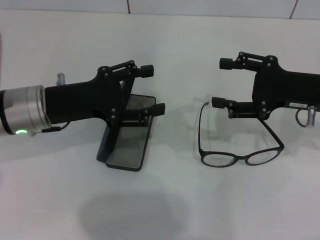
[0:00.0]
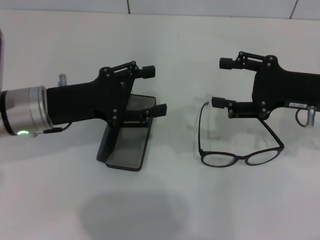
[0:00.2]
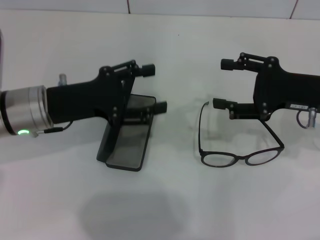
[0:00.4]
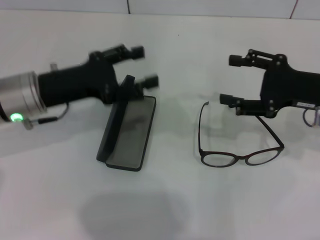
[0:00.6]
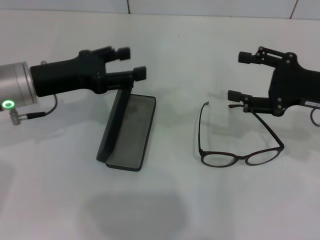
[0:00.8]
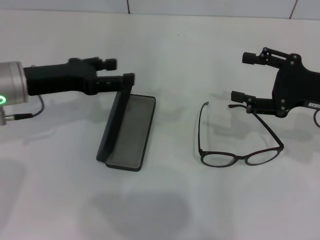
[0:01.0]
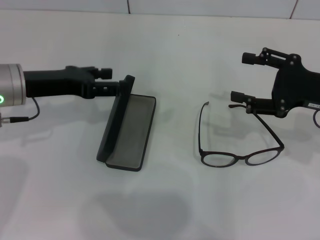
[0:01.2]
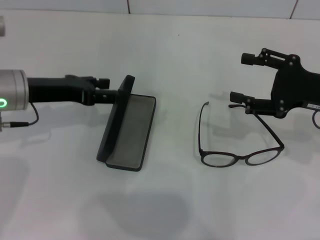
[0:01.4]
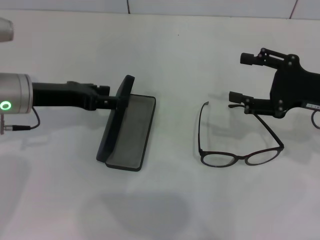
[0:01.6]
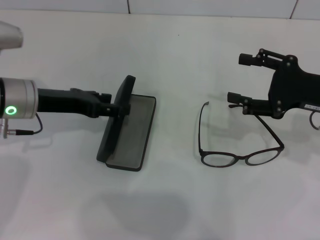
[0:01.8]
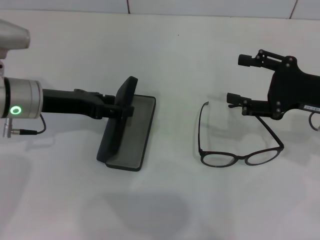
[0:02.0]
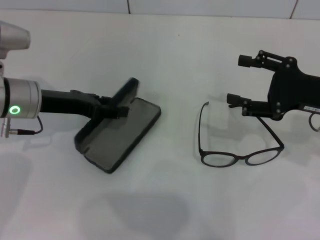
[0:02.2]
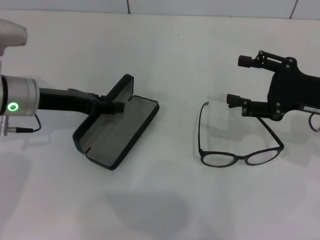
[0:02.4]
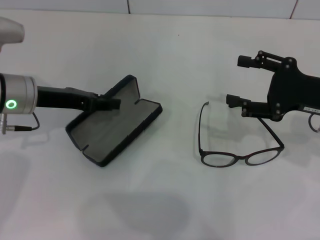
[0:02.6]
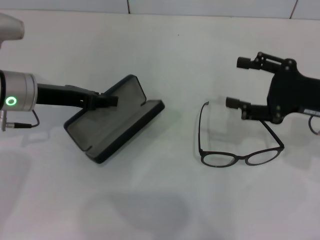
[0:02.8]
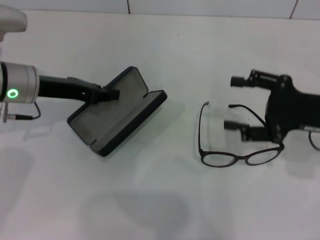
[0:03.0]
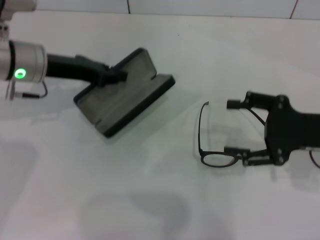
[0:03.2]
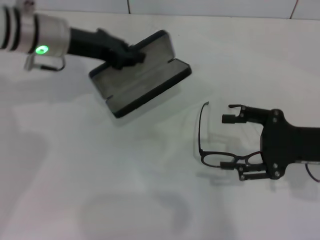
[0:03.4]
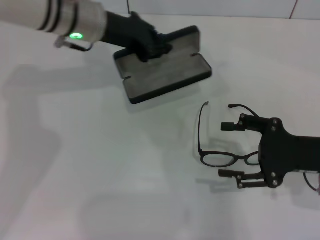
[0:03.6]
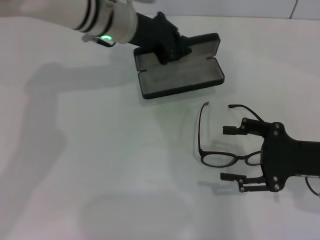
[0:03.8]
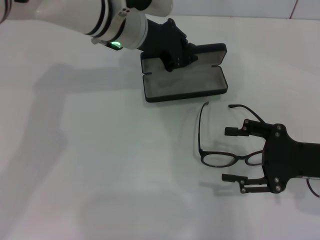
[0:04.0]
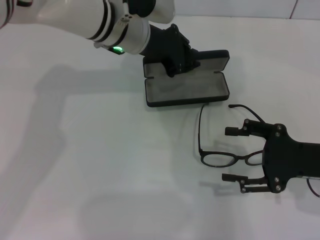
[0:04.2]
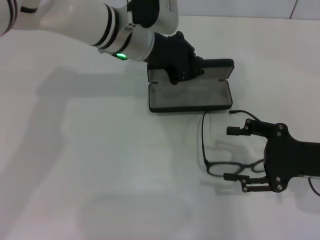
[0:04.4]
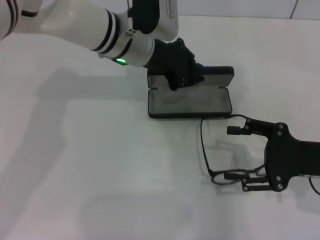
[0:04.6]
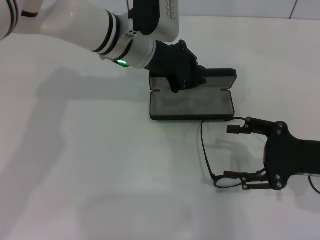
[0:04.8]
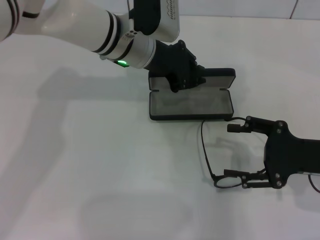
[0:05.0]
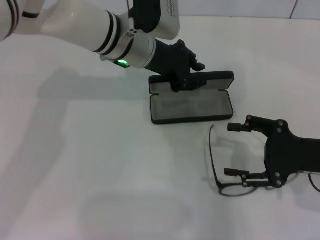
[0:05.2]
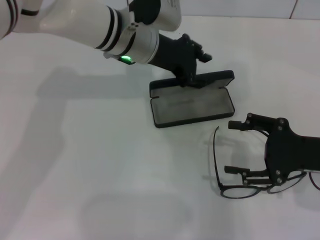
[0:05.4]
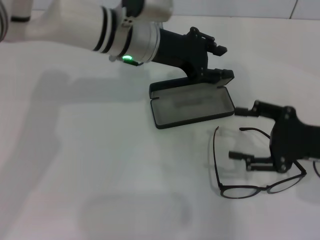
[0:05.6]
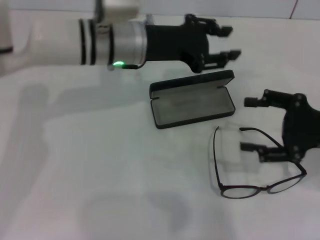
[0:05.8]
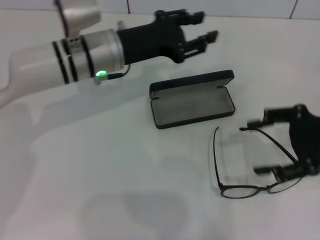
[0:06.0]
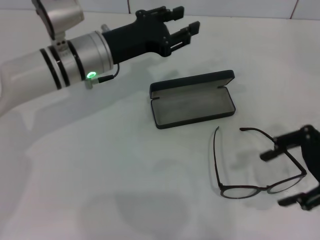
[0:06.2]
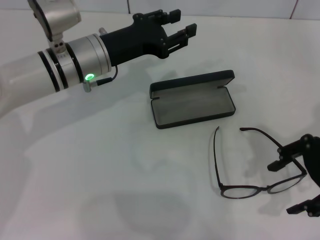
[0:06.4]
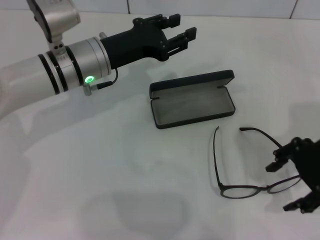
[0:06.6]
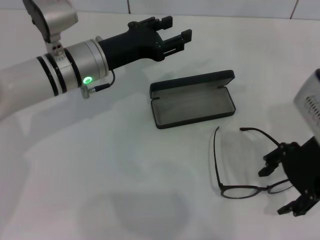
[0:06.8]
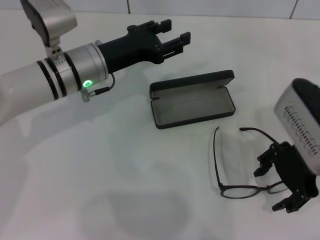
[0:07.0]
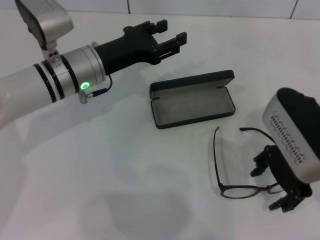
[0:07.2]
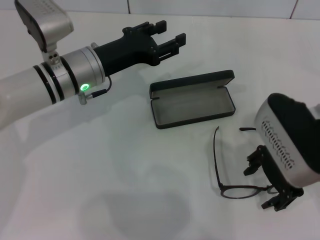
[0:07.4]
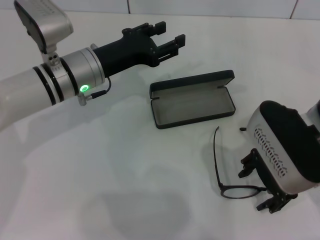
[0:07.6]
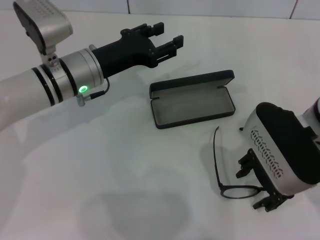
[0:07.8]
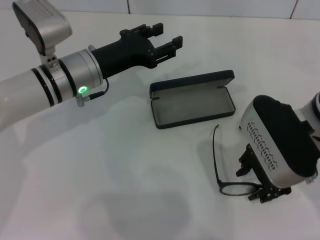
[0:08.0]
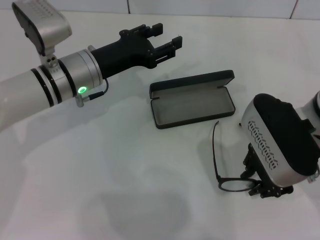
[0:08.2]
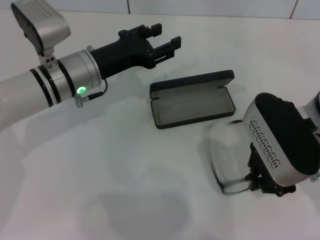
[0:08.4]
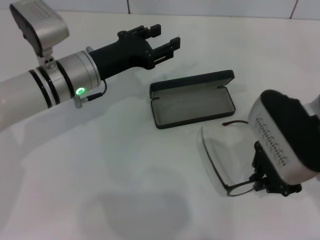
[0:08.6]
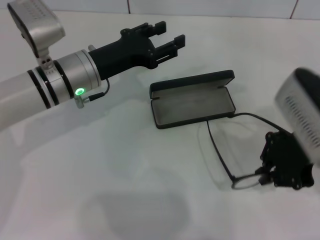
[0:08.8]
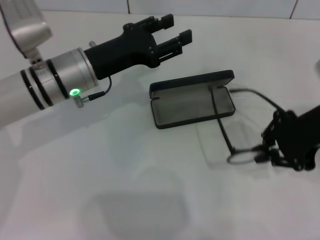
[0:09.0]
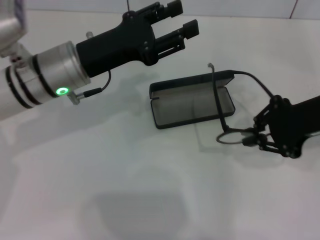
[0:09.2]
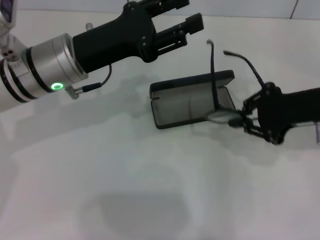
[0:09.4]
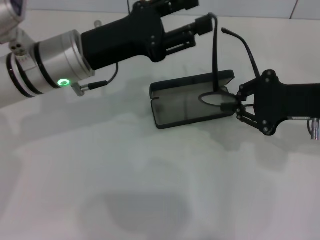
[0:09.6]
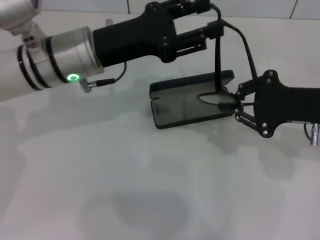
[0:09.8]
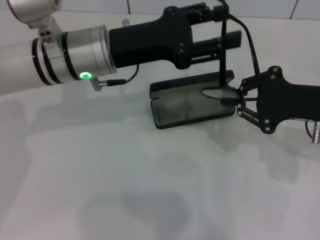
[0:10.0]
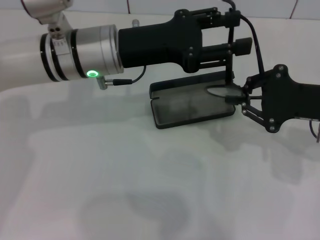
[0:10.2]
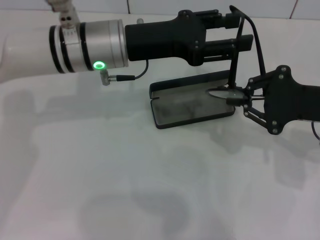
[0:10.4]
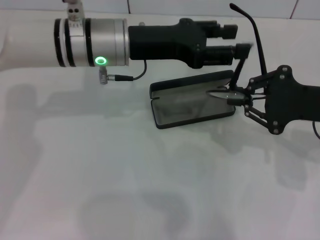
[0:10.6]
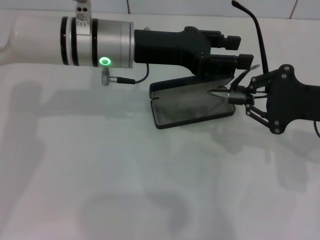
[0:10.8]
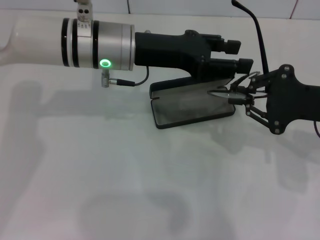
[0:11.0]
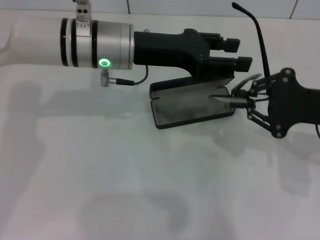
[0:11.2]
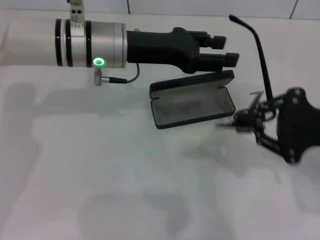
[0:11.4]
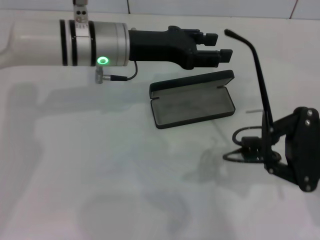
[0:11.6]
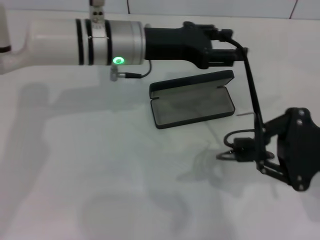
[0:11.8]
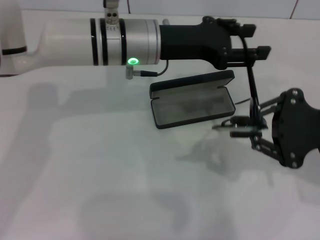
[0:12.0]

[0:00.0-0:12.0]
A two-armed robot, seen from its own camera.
Step, 0:00.0 to 0:02.2: Grab the glasses case with your left hand.
Step, 0:02.6 to 0:04.8: Place the glasses case in the center of the table with your left hand.
Step, 0:05.0 to 0:08.2: Grab the eyeglass frame with your right hand.
0:01.6 to 0:03.0: The left gripper closes up.
0:03.0 to 0:04.4: The right gripper changes place by some 5 cm. Meanwhile the left gripper shifts some 15 cm to the right.
0:04.4 to 0:06.0: The right gripper goes approximately 10 cm upward; the left gripper goes roughly 5 cm to the left, and opens up.
0:06.0 to 0:07.6: The right gripper moves to the left, approximately 10 cm.
0:07.6 to 0:09.0: The right gripper is displaced to the right and upward by approximately 5 cm, and closes up.
0:09.0 to 0:10.4: The right gripper goes some 5 cm downward; the left gripper heads upward, covering approximately 5 cm.

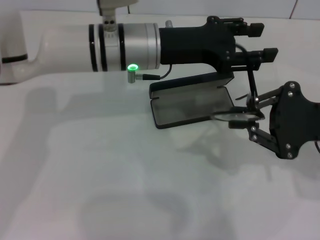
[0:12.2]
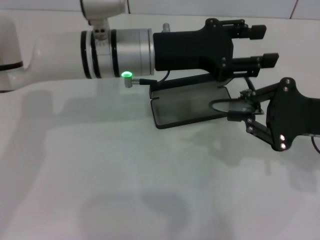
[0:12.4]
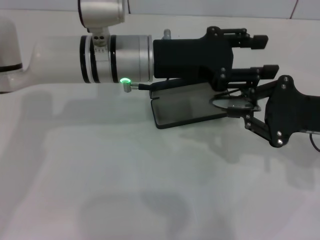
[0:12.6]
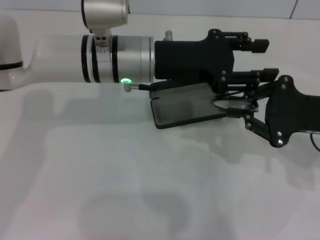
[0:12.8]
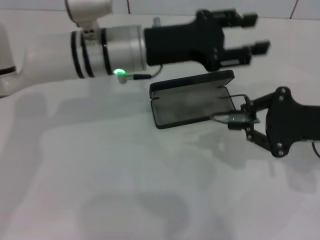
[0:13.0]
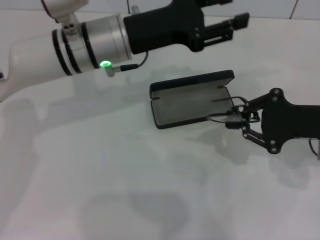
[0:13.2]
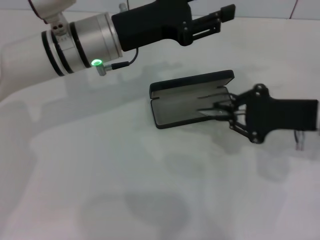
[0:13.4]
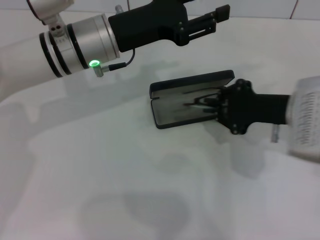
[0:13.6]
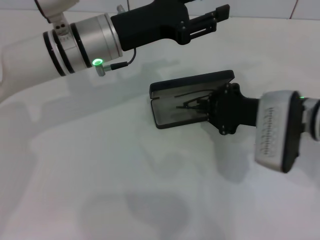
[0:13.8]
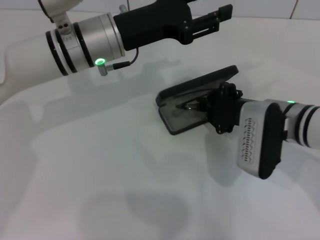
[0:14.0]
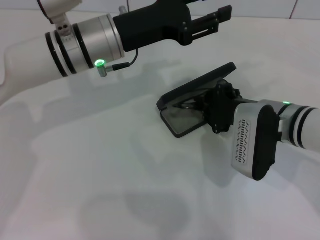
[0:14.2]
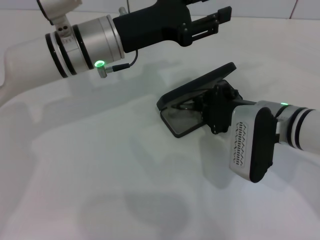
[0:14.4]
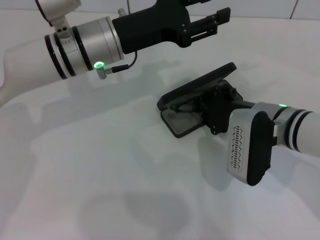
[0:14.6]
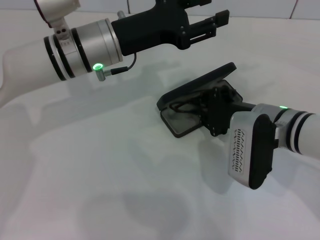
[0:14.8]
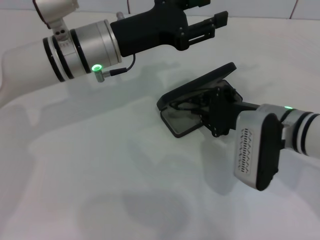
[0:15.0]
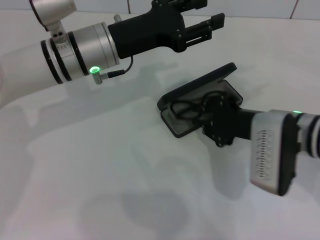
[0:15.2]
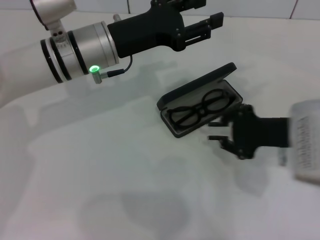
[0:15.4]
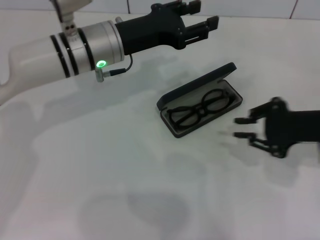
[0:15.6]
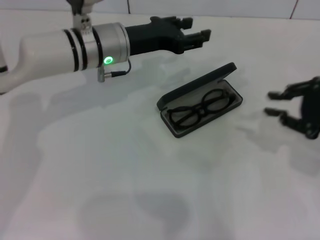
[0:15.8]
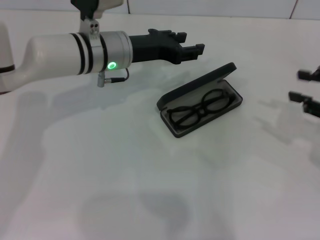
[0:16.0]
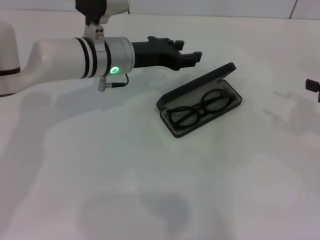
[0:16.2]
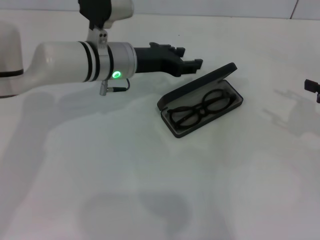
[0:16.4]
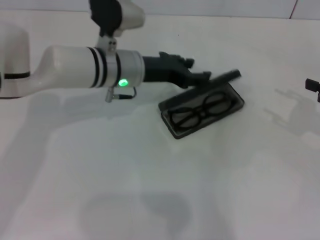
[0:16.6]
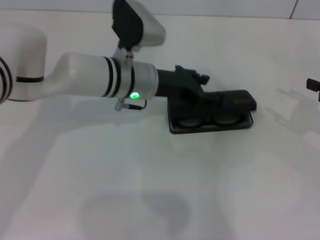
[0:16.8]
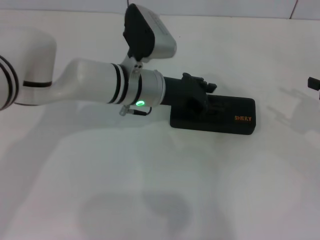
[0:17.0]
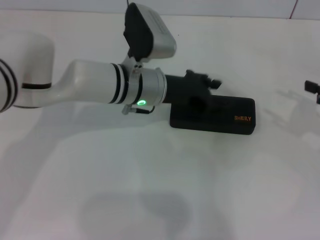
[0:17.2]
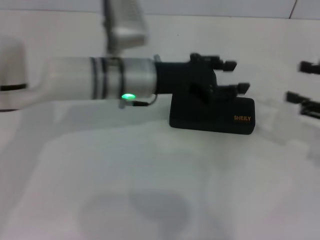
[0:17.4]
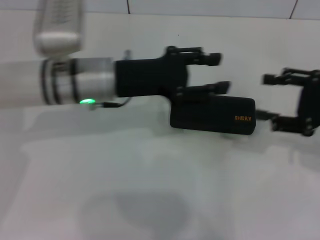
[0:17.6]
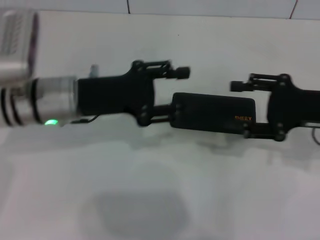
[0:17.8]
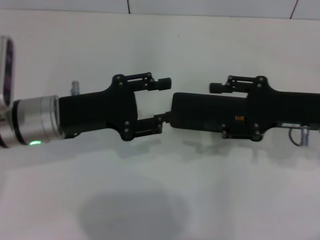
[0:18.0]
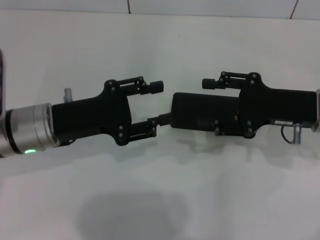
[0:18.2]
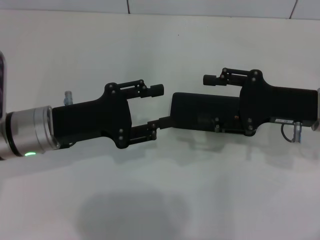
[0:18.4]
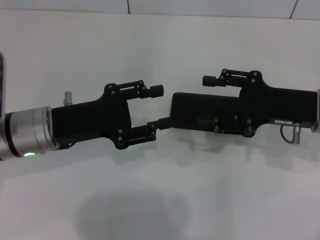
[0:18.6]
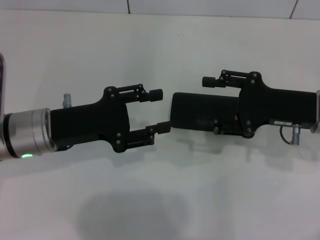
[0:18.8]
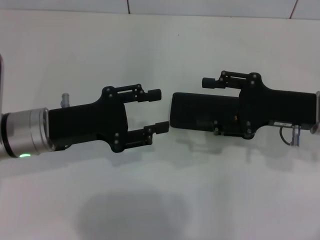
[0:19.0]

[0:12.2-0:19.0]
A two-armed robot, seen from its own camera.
Step, 0:12.6 to 0:15.2: Put the glasses into the case with your right hand.
Step, 0:15.4 to 0:16.8: Close the glasses case with your left hand.
0:12.2 to 0:13.6: Both grippers move to the left, approximately 5 cm.
0:13.6 to 0:15.0: The right gripper moves roughly 5 cm.
0:15.0 to 0:16.2: The right gripper heads to the right, covering approximately 20 cm. The left gripper moves approximately 5 cm.
0:16.2 to 0:17.6: The left gripper moves backward, about 5 cm, while the right gripper travels to the left by roughly 5 cm, and opens up.
0:17.6 to 0:19.0: The left gripper travels to the left and backward by about 10 cm. The right gripper goes roughly 10 cm to the left.

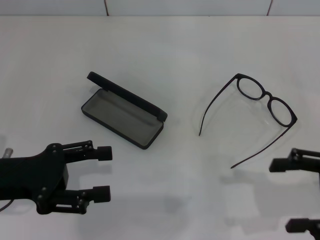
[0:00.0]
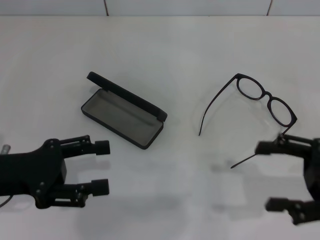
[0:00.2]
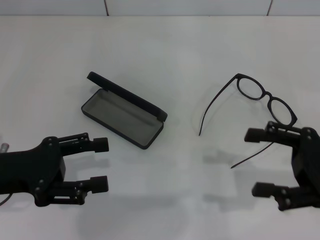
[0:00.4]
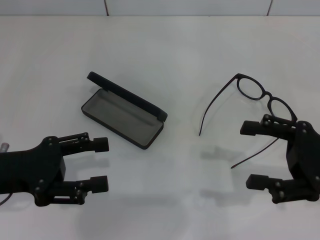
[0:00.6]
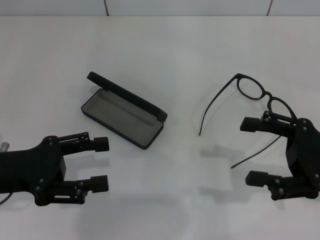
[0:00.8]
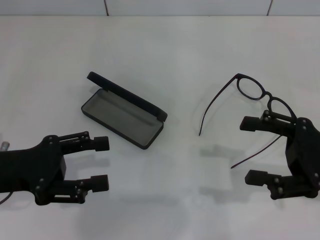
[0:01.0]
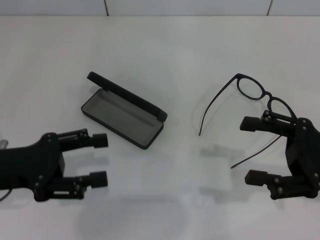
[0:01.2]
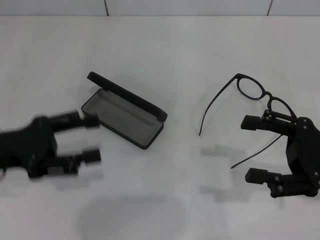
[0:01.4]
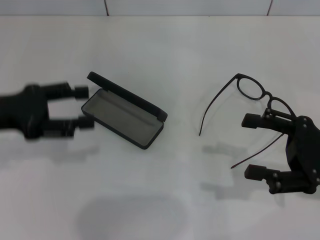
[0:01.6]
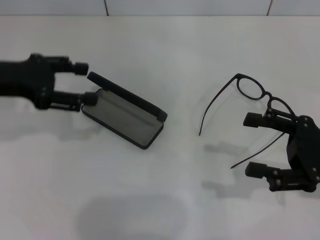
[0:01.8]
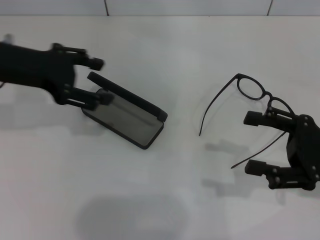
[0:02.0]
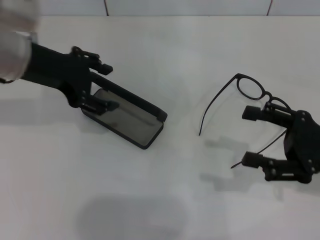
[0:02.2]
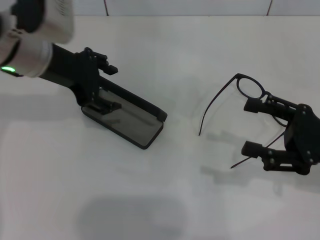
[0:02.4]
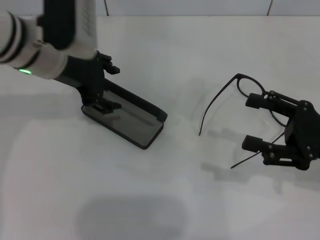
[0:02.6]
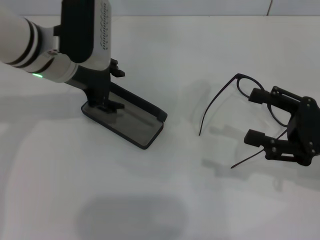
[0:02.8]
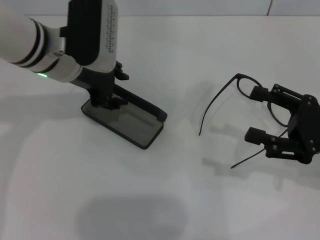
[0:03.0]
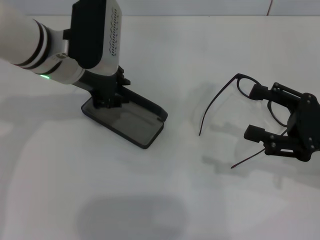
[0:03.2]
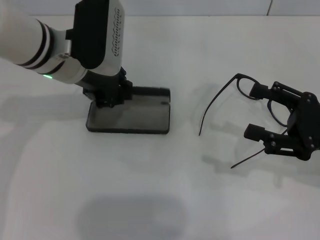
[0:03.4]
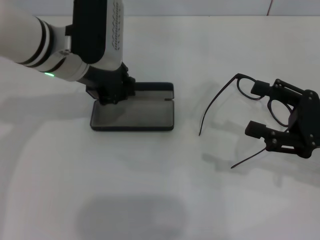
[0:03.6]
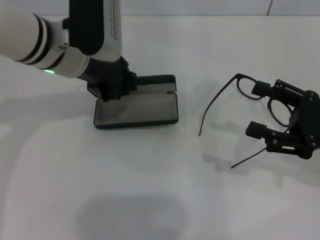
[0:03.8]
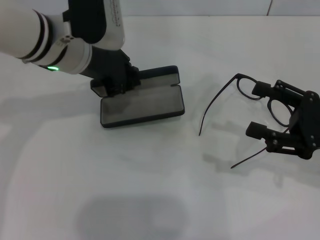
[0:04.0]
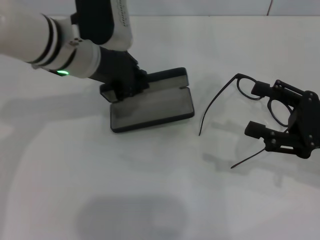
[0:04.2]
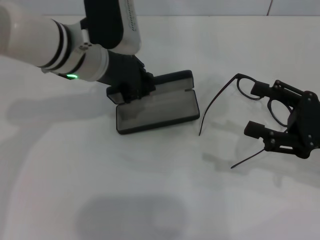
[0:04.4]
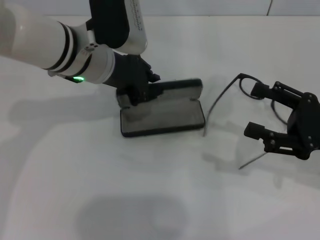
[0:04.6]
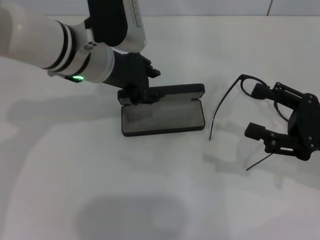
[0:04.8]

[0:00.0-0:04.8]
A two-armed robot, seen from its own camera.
Step, 0:00.0 to 0:03.2: Grab the glasses case with your left hand.
Step, 0:03.6 to 0:04.8: Place the glasses case in the center of the table with your left hand.
0:00.0 to 0:01.6: The left gripper moves forward, some 5 cm.
0:01.6 to 0:03.2: The left gripper travels to the right and forward by approximately 15 cm.
0:03.2 to 0:04.8: The grippers stay close to where they were, moving slightly.
